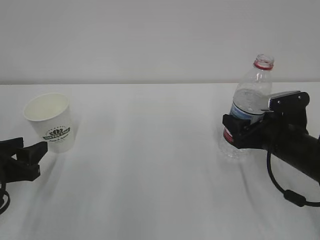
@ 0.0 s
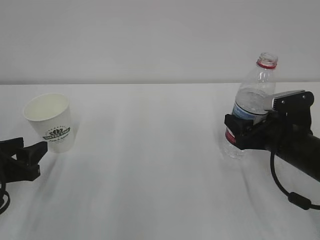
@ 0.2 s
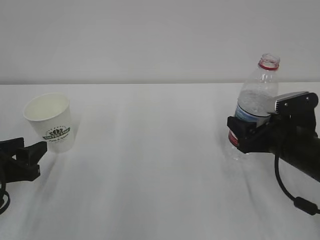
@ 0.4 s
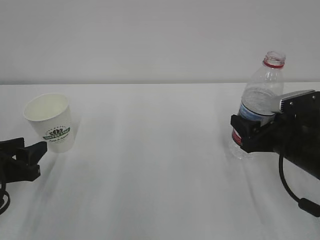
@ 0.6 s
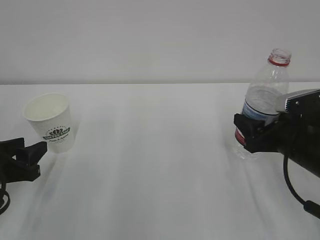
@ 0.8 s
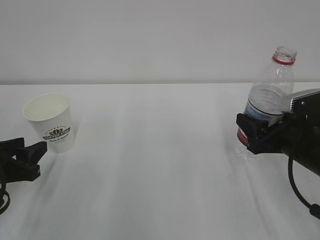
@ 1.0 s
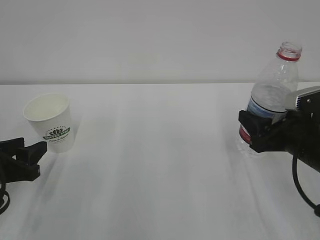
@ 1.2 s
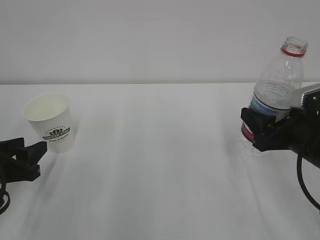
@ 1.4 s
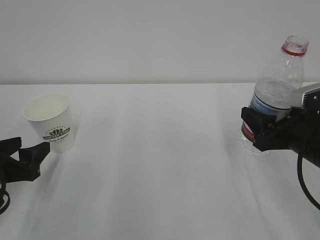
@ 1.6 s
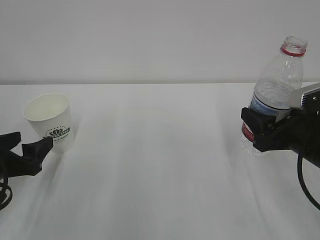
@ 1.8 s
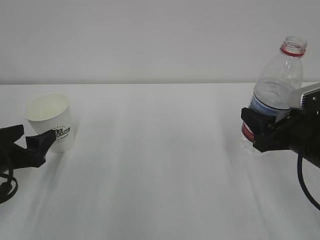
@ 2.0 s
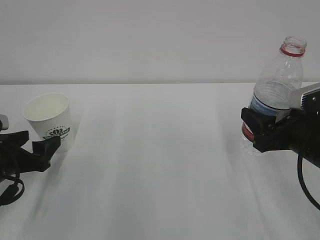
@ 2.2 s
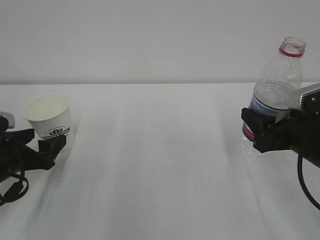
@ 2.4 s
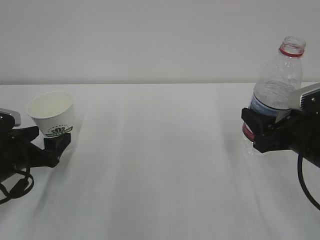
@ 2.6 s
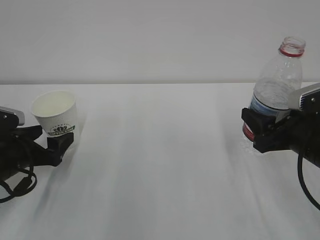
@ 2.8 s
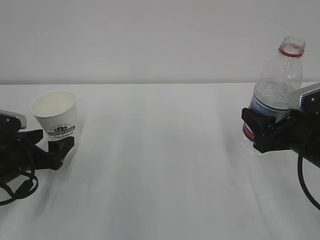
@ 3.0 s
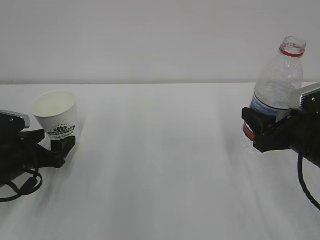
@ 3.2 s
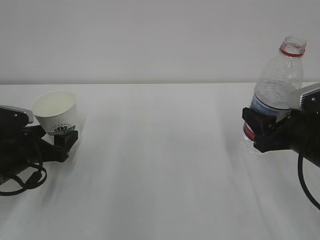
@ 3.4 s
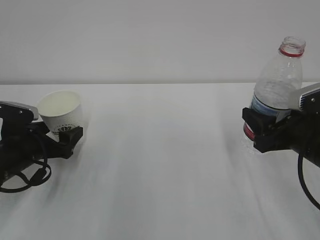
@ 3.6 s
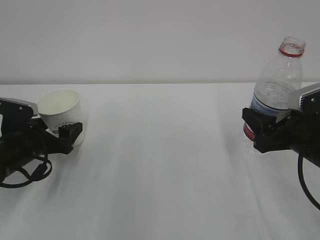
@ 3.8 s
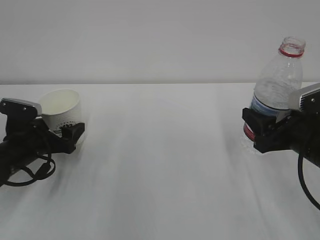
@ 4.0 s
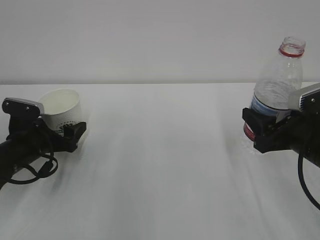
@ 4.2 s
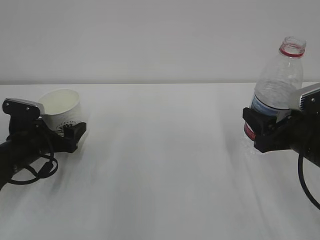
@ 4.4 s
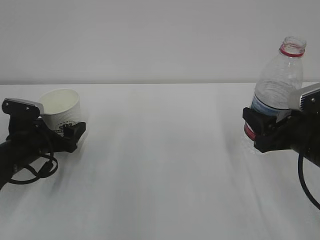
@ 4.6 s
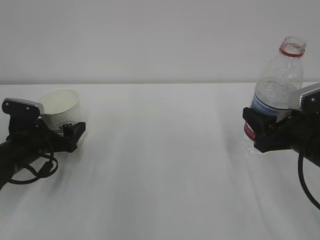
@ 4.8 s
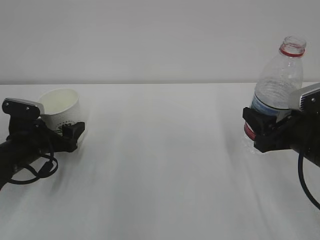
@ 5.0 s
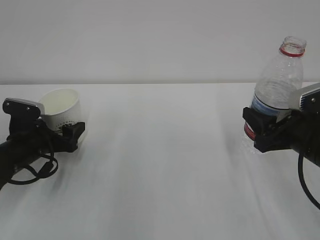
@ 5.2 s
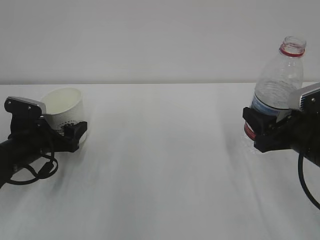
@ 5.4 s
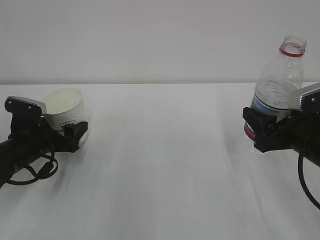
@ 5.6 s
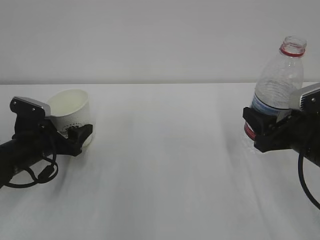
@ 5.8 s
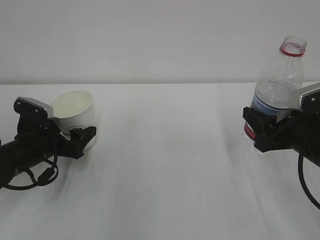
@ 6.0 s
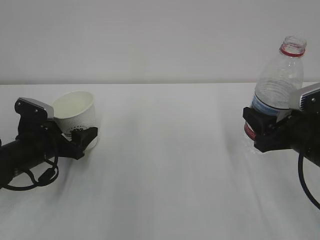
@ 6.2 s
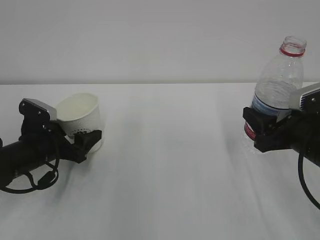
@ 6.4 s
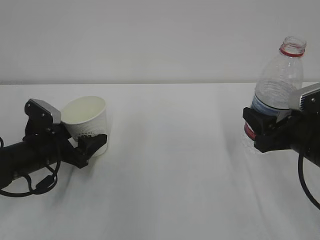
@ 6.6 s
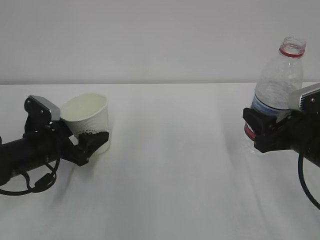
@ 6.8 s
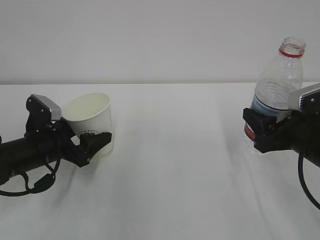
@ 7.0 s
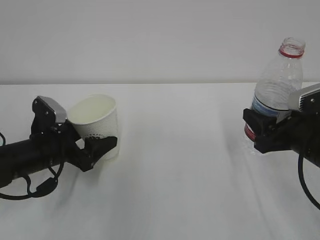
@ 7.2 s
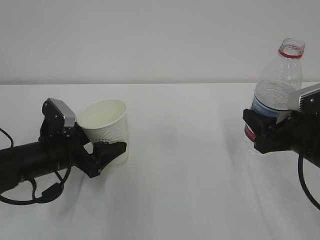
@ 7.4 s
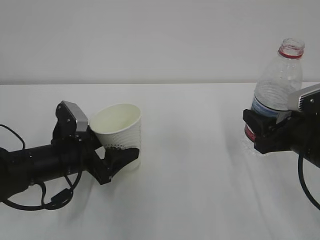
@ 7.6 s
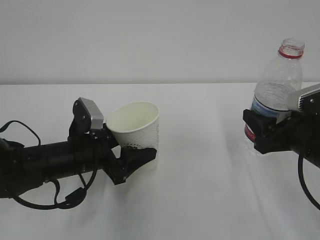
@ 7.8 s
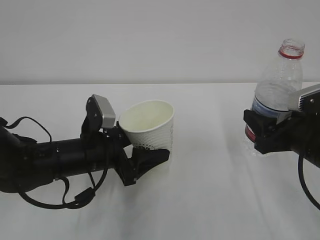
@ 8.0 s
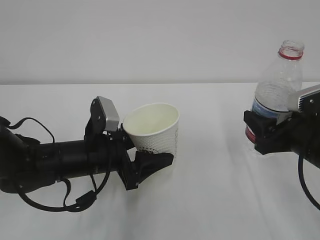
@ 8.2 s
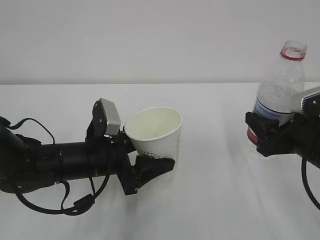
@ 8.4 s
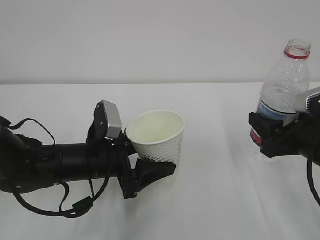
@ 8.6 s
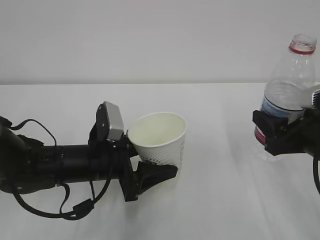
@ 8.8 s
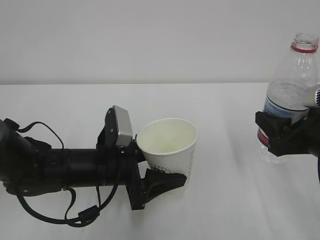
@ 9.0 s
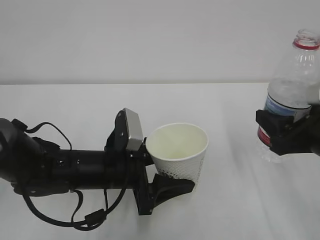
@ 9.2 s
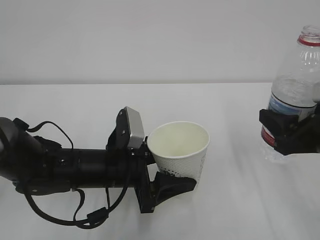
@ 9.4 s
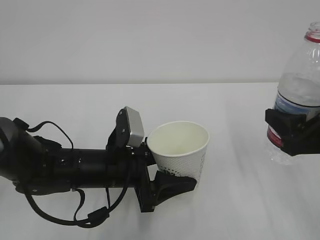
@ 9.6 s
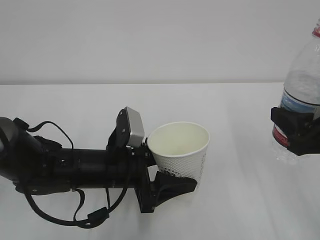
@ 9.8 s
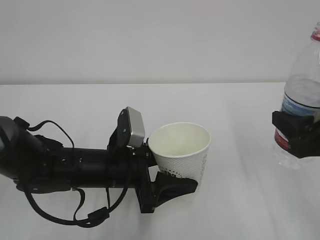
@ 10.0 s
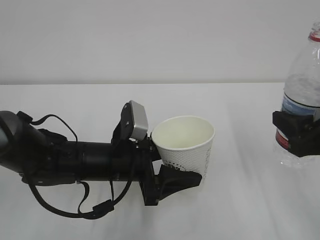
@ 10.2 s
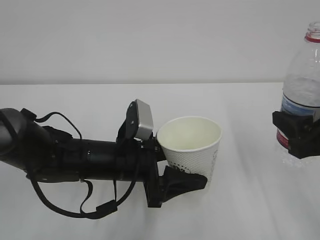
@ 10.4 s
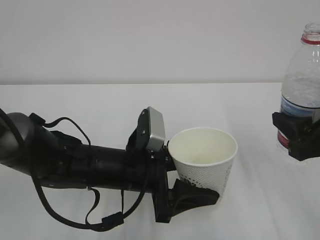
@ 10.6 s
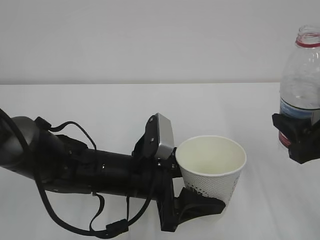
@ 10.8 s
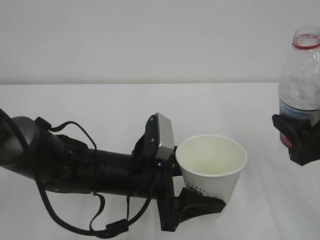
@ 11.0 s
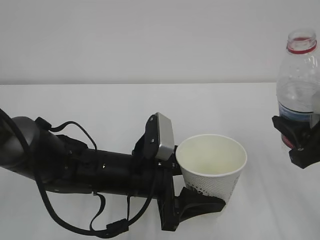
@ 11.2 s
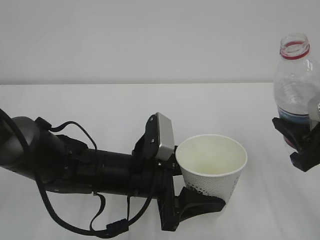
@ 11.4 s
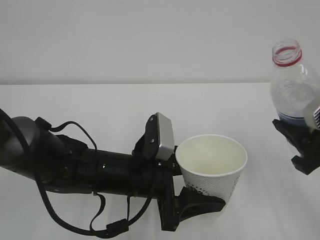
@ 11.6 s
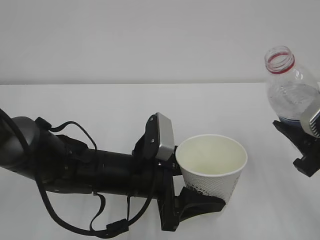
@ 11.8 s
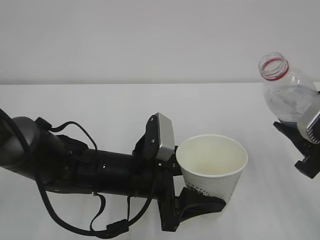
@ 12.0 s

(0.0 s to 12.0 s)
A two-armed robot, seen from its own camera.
0.0 s - 1.6 s: The right gripper moves upward, some 5 cm.
1.6 s - 3.0 s: The left gripper shifts some 5 cm forward, and opens its fingers.
3.0 s - 4.4 s: The grippers make only small movements.
4.4 s - 6.0 s: The left gripper closes.
6.0 s - 7.6 s: The left gripper travels to the right by approximately 5 cm.
7.6 s - 9.0 s: The left gripper travels to the right by roughly 5 cm.
9.0 s - 10.4 s: The grippers make only small movements.

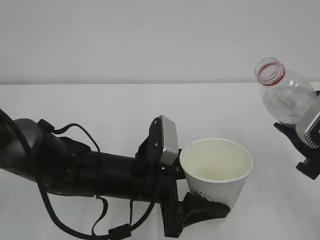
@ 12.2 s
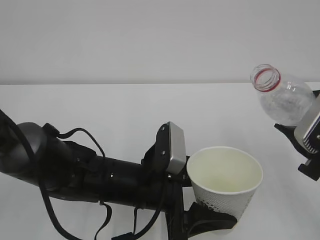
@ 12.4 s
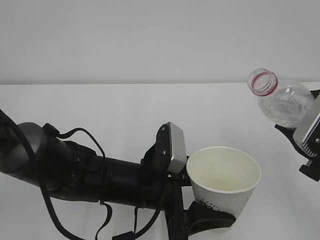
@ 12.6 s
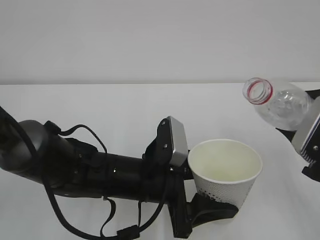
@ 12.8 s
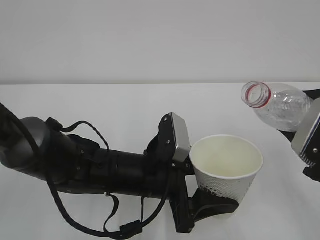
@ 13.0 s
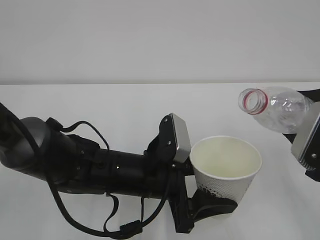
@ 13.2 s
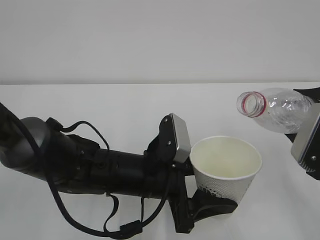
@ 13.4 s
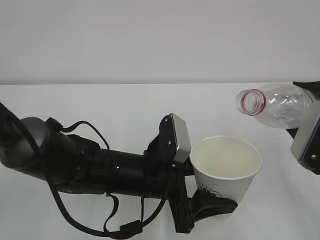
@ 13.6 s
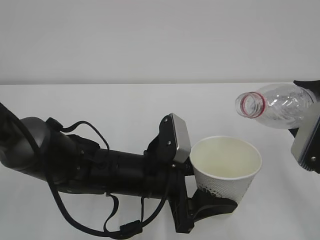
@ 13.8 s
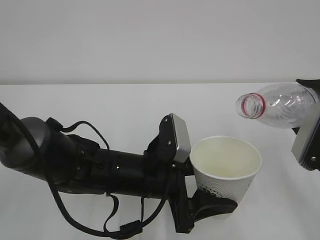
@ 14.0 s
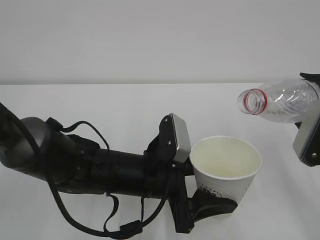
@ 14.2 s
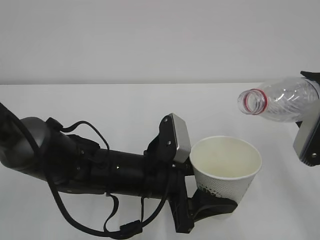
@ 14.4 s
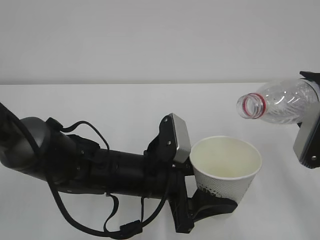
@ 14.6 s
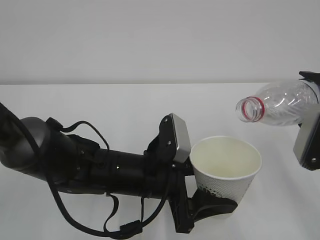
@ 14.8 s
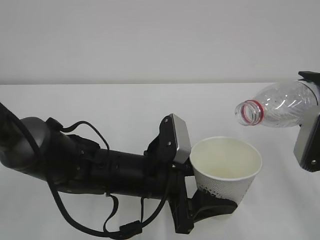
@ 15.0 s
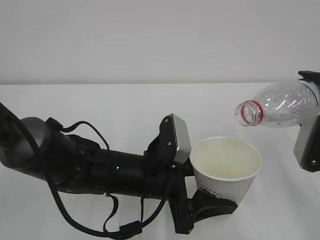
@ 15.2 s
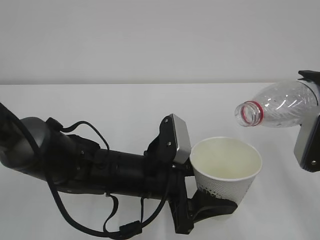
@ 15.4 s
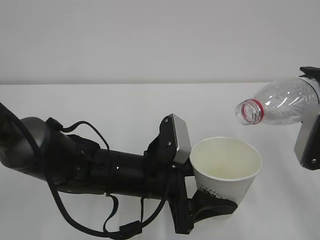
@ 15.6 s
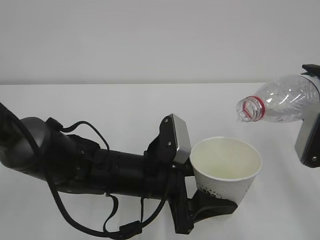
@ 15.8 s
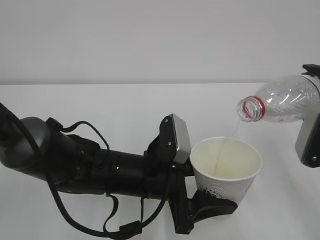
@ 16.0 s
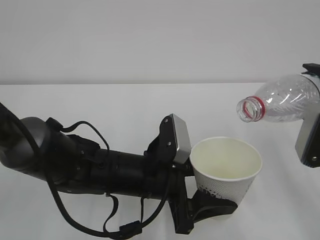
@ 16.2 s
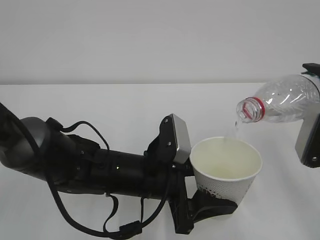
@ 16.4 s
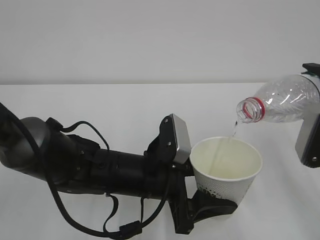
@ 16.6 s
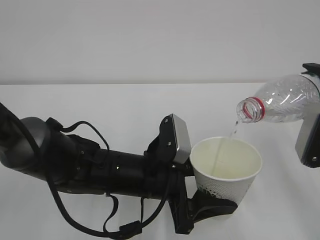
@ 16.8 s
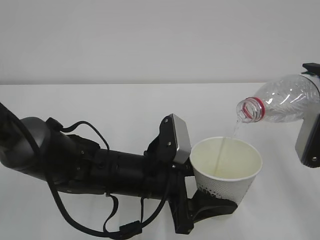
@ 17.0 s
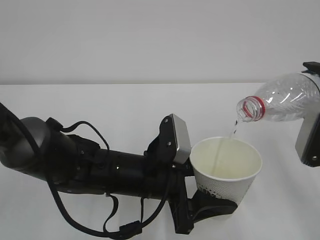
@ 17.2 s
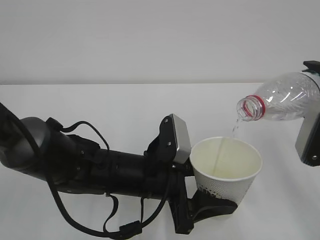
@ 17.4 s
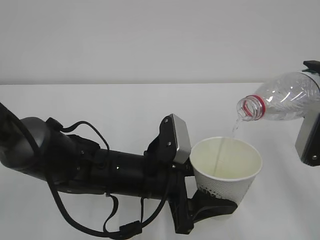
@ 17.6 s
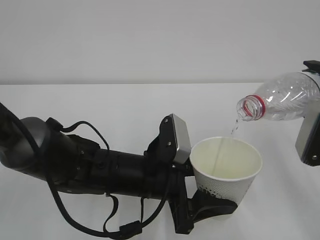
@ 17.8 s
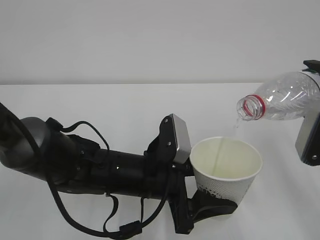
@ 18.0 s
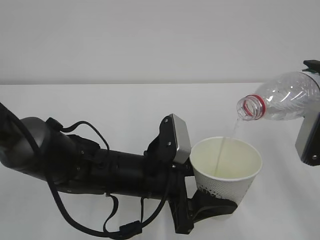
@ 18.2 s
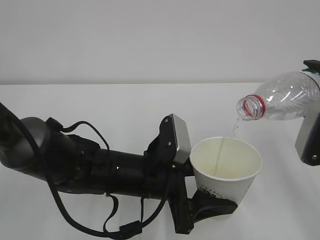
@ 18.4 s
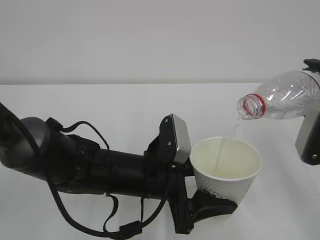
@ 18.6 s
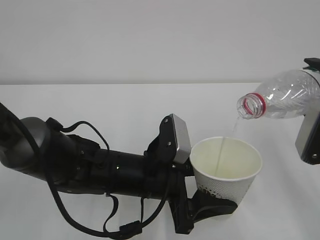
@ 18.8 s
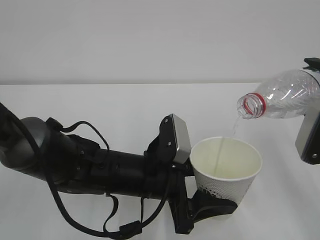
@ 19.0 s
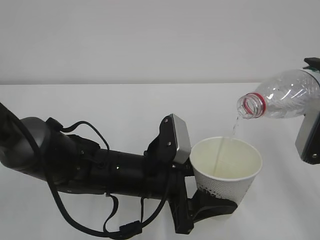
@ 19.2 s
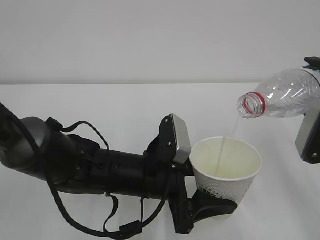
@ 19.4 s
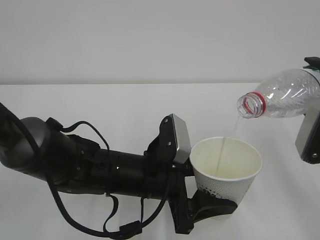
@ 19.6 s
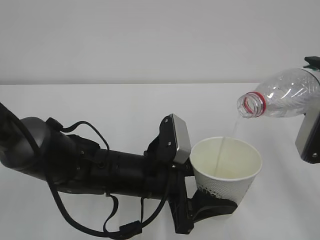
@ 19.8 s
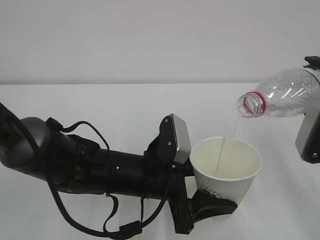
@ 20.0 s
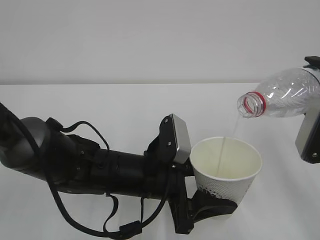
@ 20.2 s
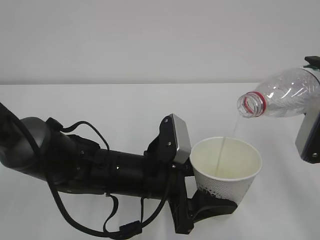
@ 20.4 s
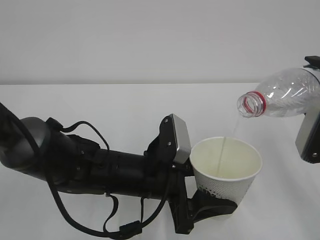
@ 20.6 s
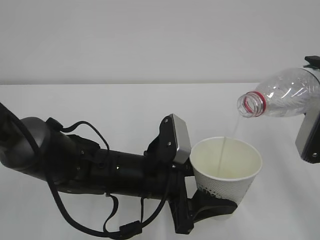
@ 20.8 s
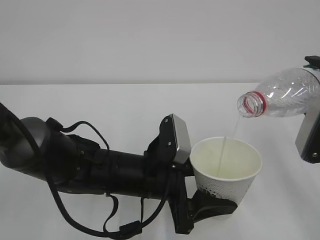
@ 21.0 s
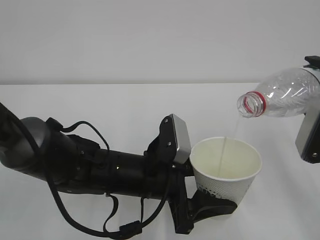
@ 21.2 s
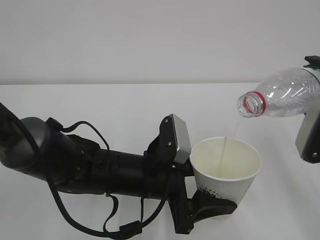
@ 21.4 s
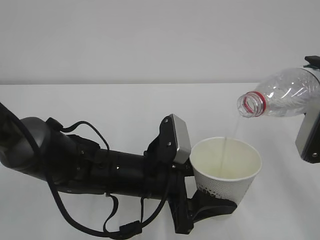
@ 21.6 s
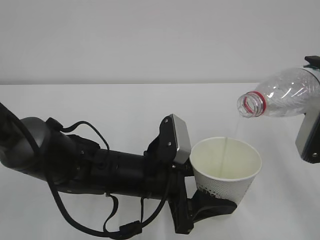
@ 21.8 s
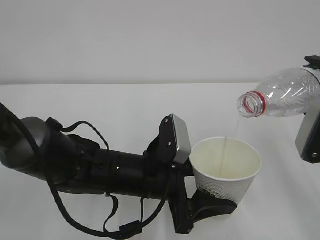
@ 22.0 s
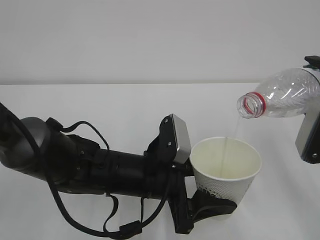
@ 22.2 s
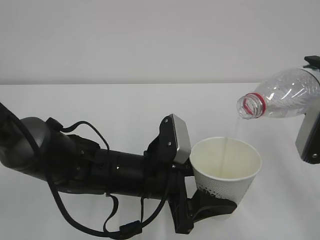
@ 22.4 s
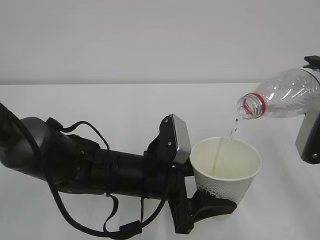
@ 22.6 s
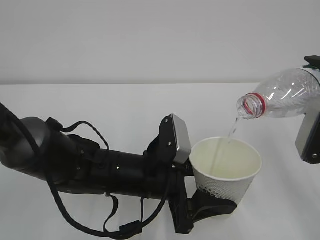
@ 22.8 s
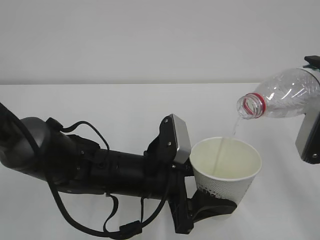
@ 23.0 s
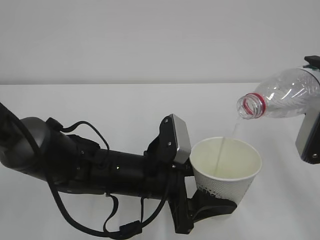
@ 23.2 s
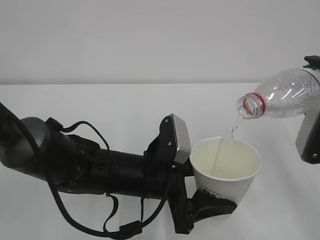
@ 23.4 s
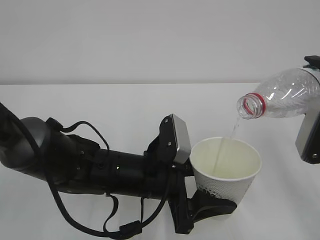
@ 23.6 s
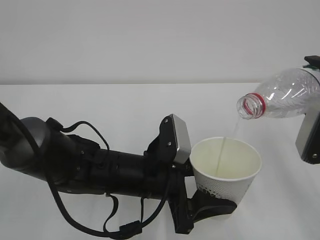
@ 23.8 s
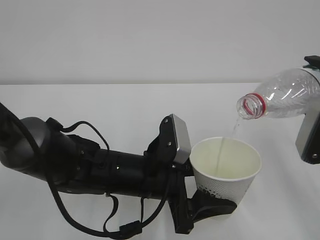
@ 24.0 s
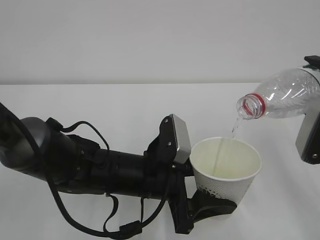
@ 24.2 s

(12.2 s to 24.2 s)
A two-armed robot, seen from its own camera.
13.8 s - 15.2 s: The grippers make only small movements.
15.2 s - 16.6 s: The two grippers keep their place.
16.6 s - 24.2 s: Neither gripper changes place.
